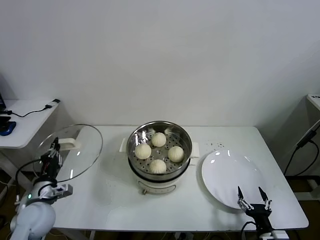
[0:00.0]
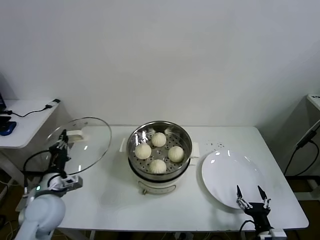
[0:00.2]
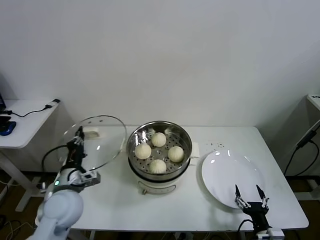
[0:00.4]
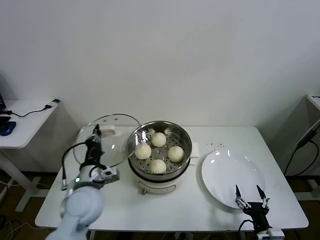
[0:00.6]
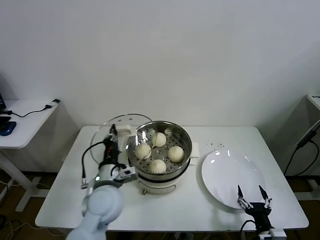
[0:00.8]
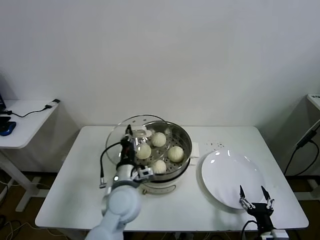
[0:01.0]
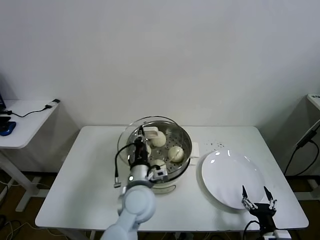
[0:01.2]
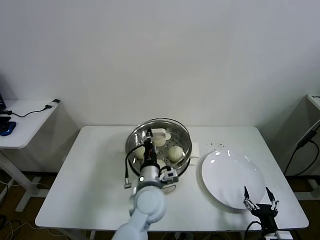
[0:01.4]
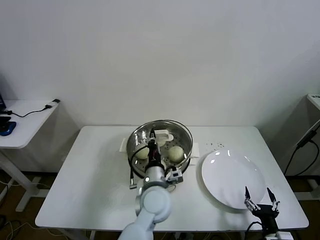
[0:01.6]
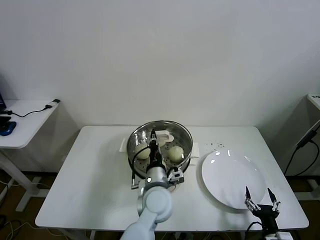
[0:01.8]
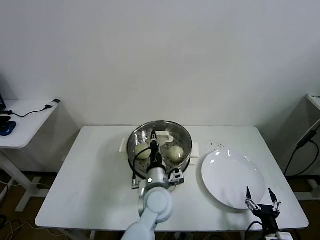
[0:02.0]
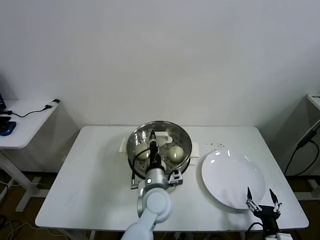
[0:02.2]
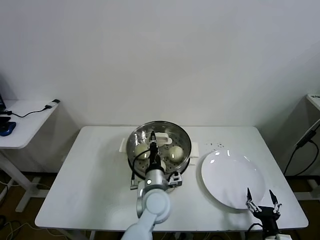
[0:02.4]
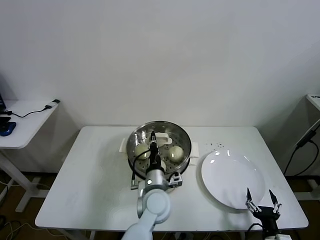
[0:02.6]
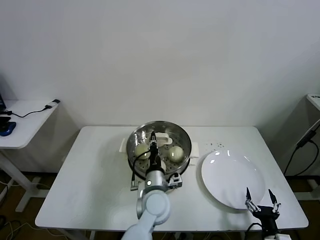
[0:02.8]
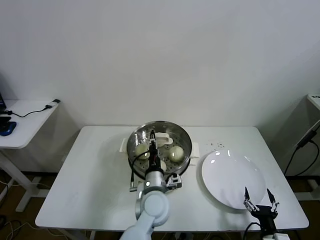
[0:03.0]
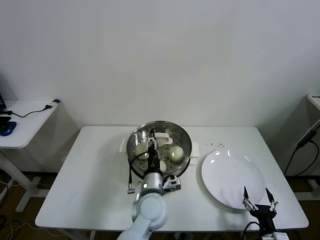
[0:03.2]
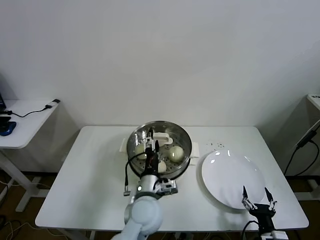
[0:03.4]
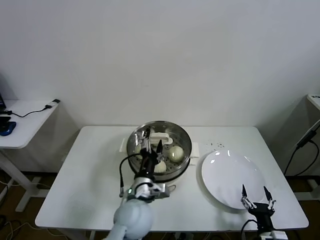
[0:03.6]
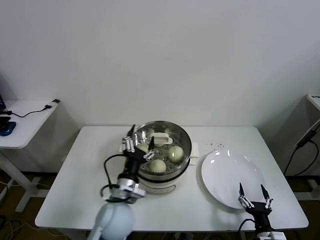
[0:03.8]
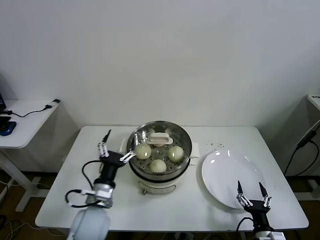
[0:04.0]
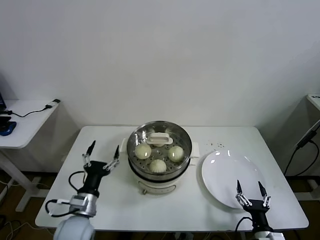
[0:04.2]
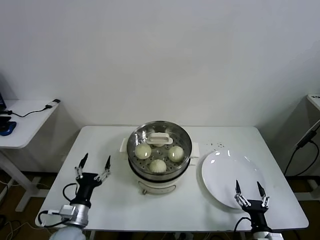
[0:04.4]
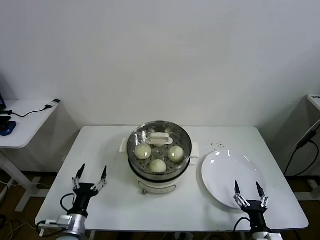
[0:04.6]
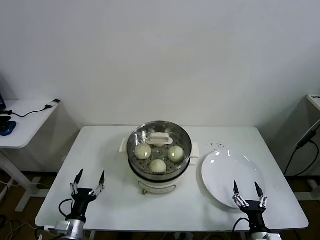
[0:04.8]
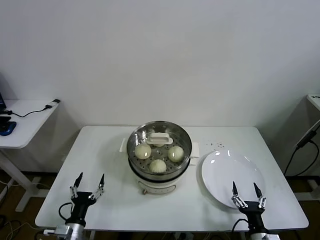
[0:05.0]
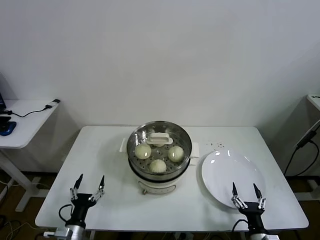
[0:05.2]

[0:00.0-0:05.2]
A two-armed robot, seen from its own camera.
Task of the whole recording: take steamed baozi put them in steamer then cover it.
Step, 0:00.0 to 0:02.8: Place the pot lid on the steamer with left gripper.
0:00.0 to 0:01.8: The left gripper moves to the right, roughly 35 cm.
0:01.8 to 0:03.4: The left gripper opens its fingers.
0:03.4 to 0:05.2: The left gripper goes some 30 cm to the left, downward and backward.
